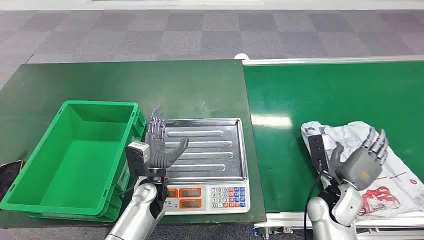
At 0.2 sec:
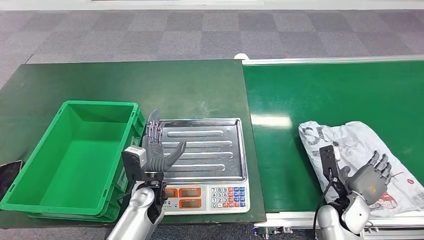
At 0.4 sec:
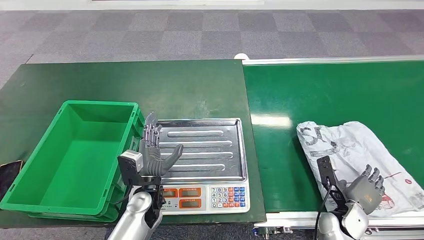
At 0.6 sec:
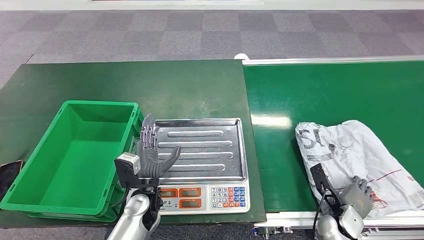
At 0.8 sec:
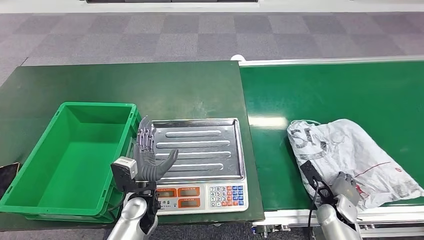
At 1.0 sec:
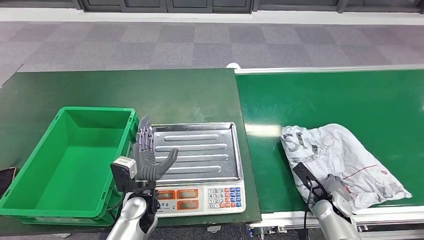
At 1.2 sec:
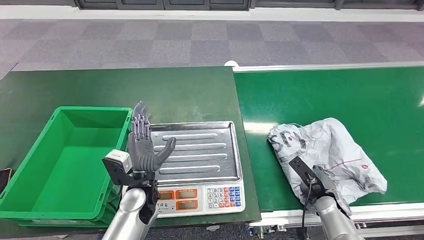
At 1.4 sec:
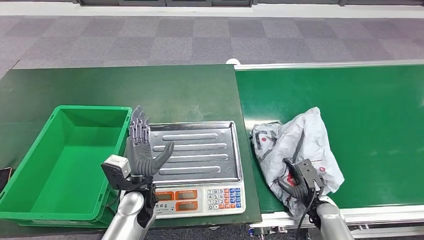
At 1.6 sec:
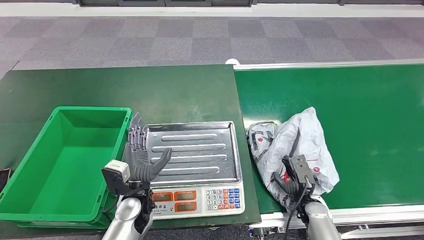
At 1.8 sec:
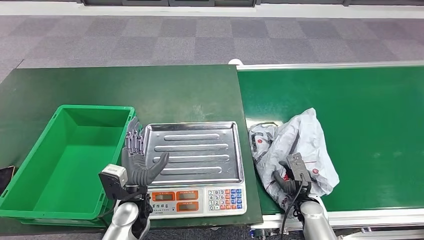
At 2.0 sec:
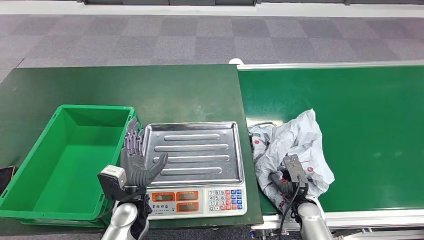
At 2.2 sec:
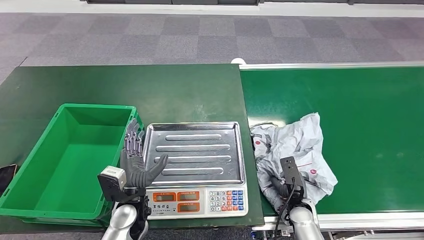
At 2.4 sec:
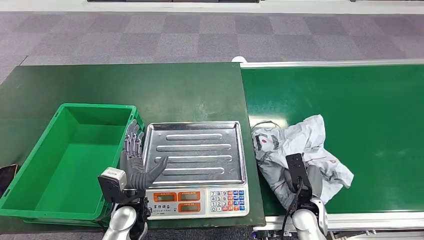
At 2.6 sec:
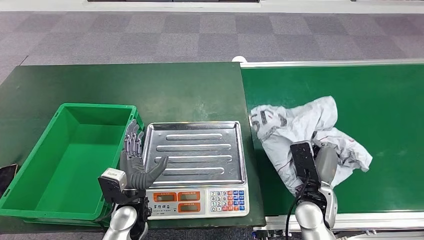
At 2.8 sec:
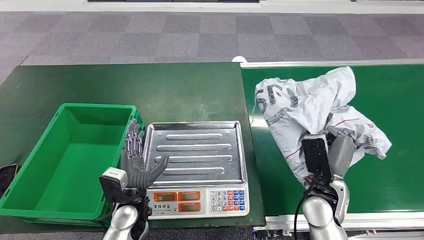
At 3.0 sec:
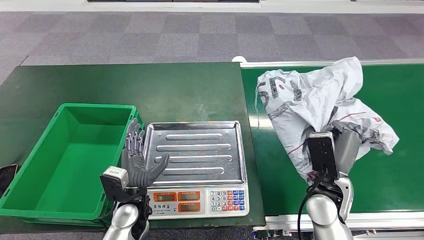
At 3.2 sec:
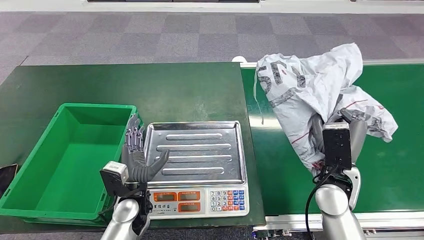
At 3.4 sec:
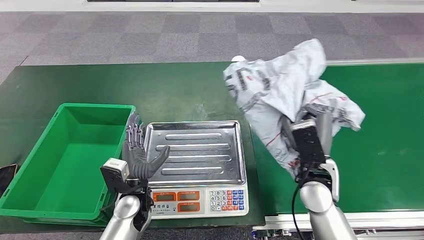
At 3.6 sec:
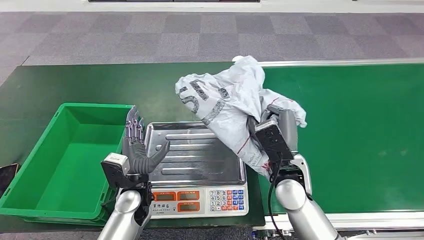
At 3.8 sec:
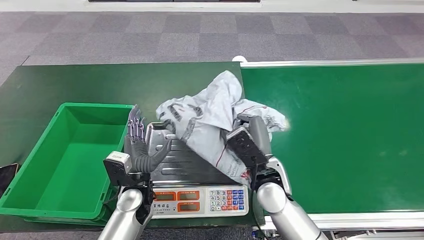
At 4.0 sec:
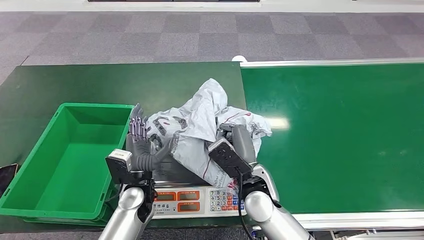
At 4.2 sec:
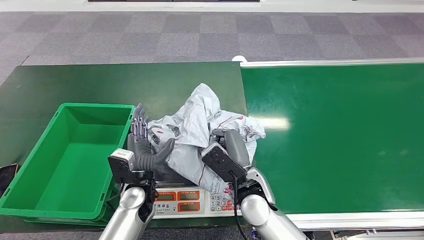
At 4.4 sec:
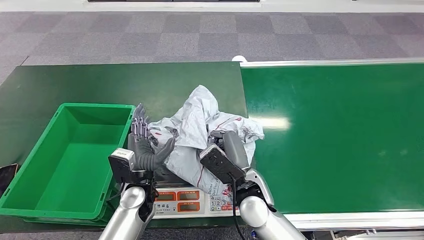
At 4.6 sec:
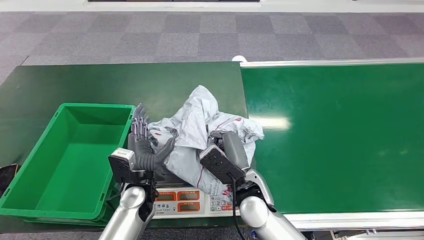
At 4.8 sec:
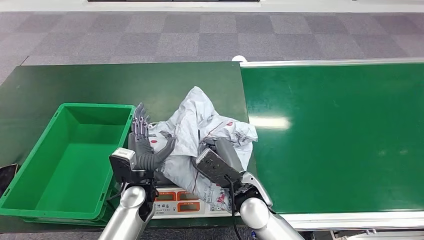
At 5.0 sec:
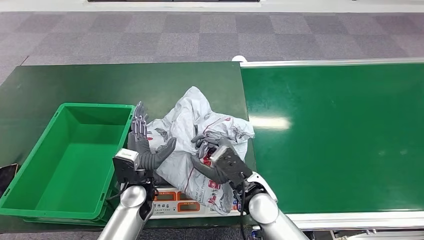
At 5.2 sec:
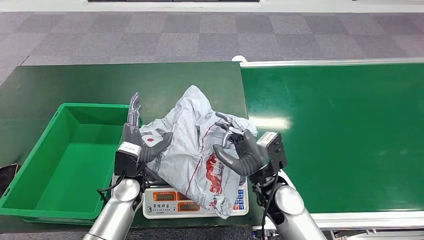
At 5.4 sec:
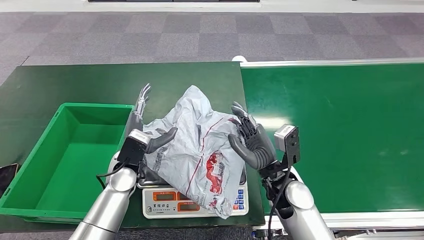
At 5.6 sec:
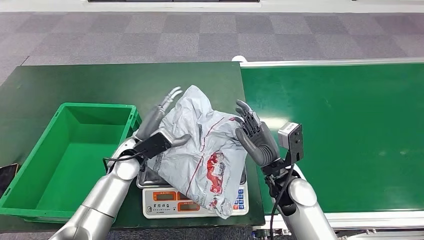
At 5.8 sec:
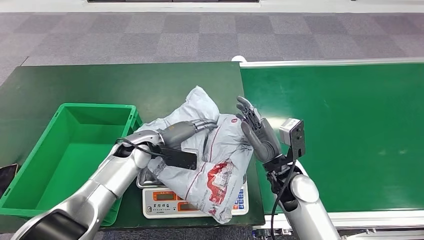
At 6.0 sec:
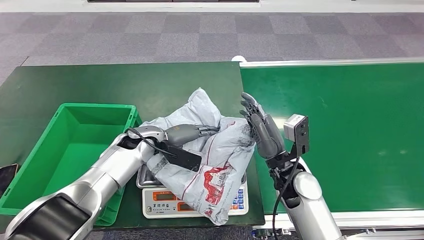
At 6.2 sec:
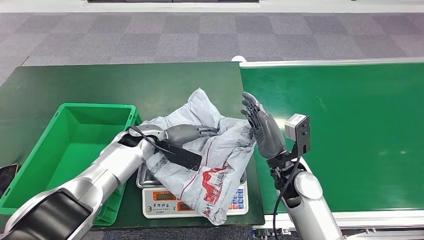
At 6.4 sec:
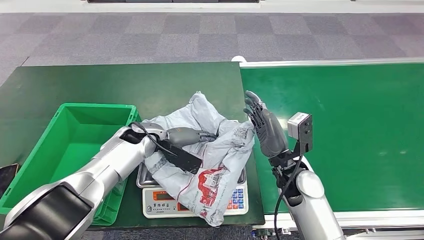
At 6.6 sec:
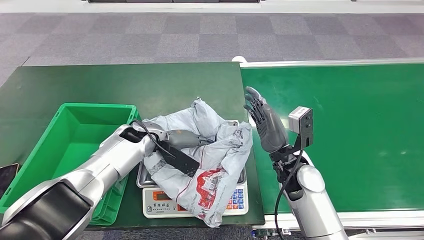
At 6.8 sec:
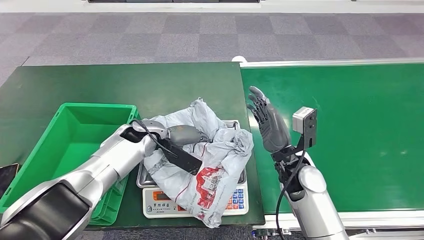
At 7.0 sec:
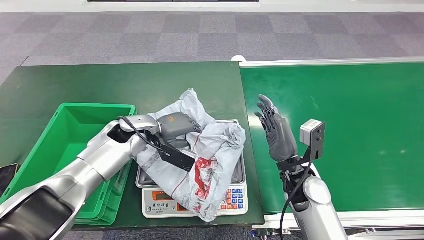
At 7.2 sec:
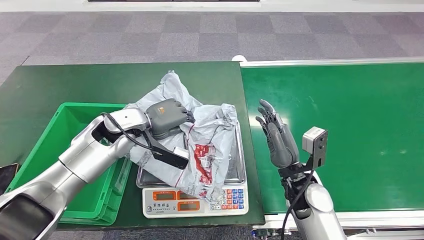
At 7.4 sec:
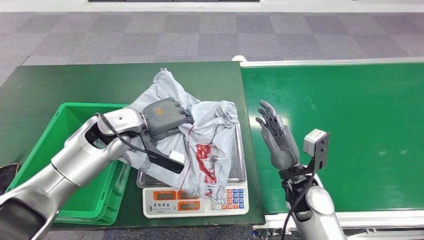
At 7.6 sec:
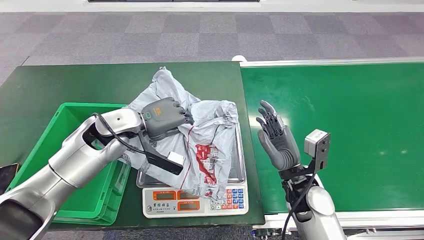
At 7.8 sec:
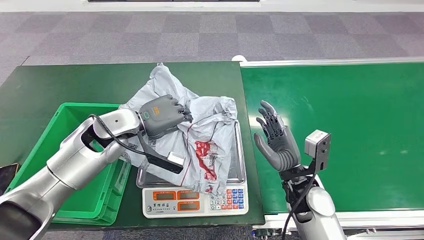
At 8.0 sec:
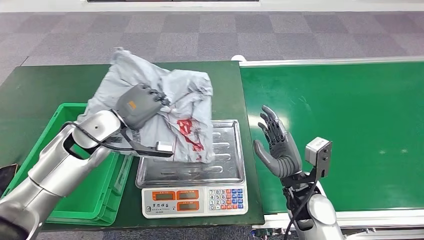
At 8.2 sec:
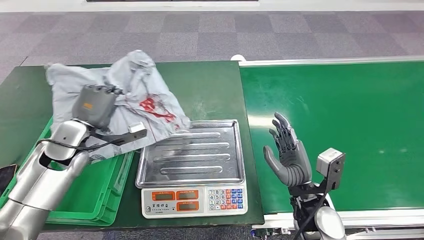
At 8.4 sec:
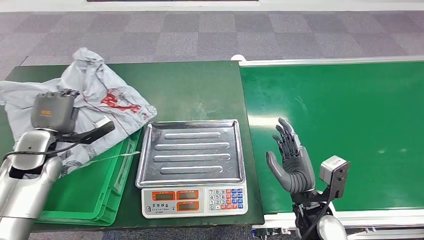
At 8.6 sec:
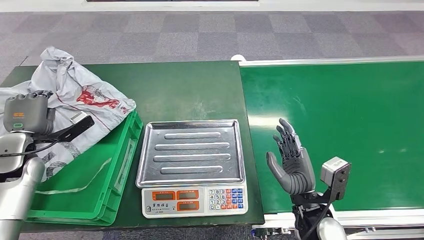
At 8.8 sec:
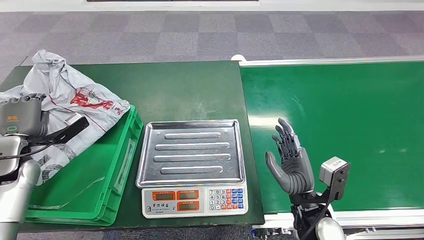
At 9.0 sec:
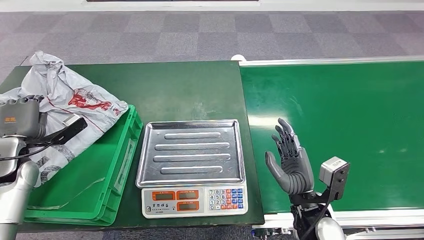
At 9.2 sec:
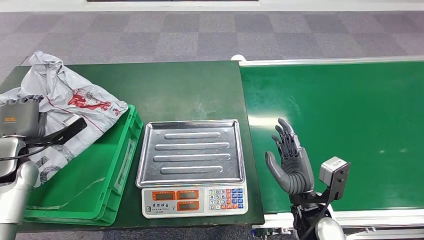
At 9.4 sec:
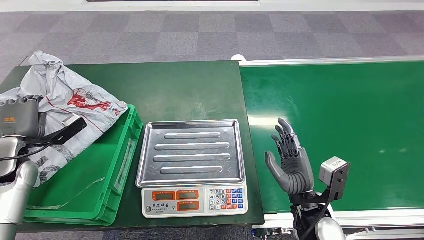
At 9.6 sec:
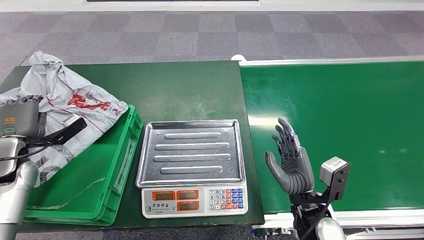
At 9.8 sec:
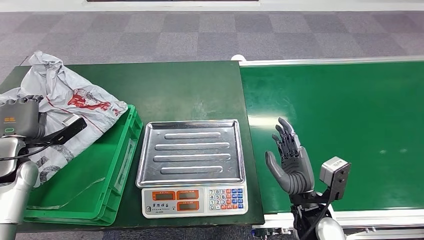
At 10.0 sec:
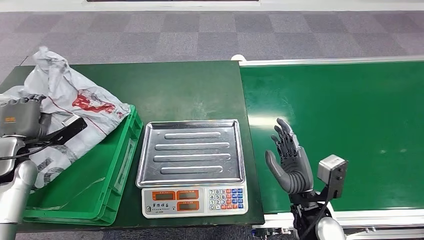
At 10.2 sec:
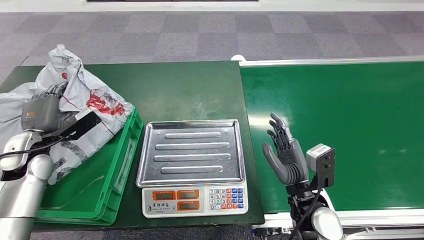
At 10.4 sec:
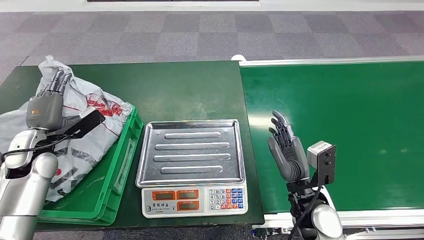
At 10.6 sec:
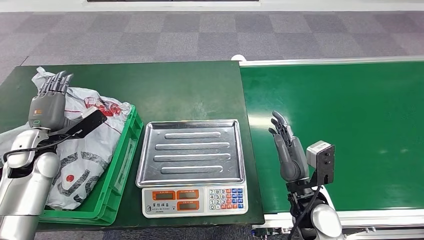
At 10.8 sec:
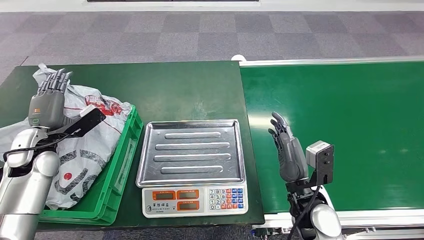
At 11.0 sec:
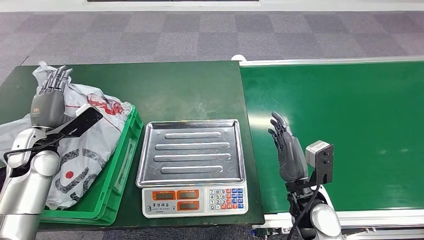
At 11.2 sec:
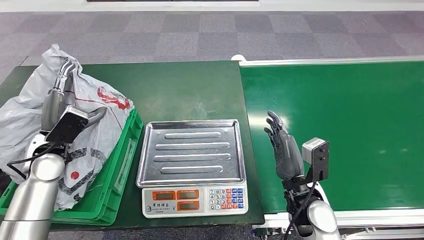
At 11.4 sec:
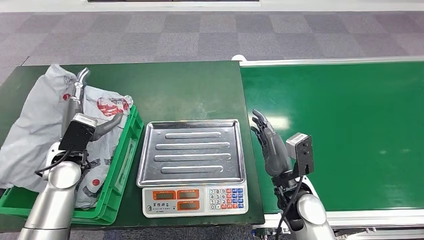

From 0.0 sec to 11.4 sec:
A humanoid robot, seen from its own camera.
Step, from 0.0 sec to 3.4 sec: Pick up the package from the conveyor belt.
Step, from 3.6 sec to 5.2 sec: Place the package onto the inbound machine.
Step, from 5.6 sec to 7.8 sec: Pick up the package from the inbound machine.
Step, from 8.0 sec to 11.4 sec: Place the package into the parcel locker.
From 4.2 sec to 5.6 sec: The right hand travels to the right by some 10 cm. The left hand moves forward and upward, some 10 cm.
From 8.6 sec to 10.0 sec: The hands make only small movements.
